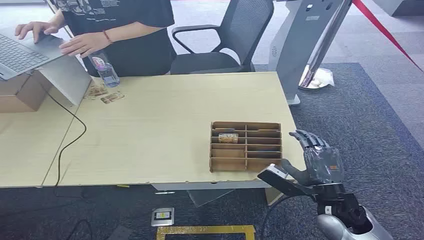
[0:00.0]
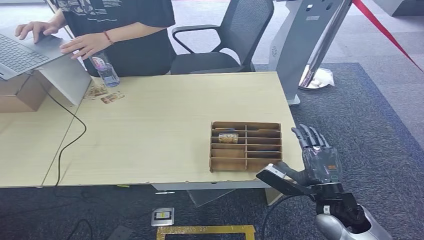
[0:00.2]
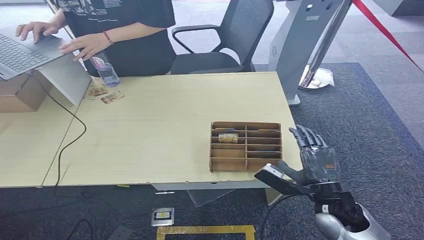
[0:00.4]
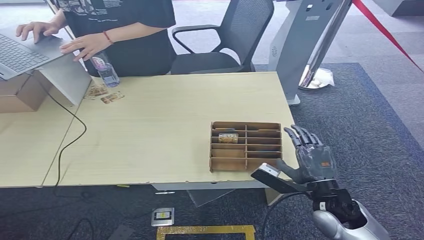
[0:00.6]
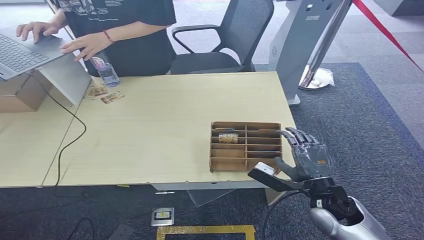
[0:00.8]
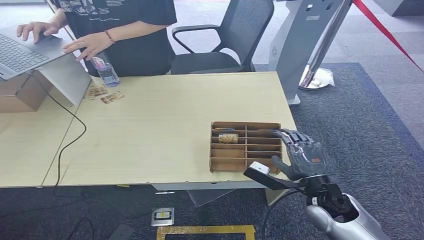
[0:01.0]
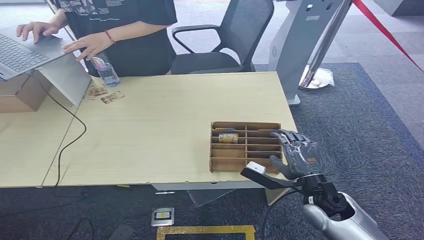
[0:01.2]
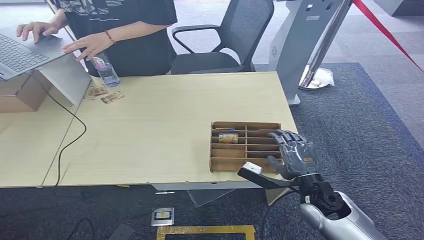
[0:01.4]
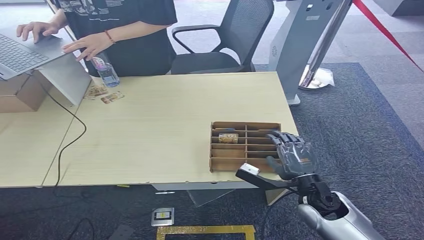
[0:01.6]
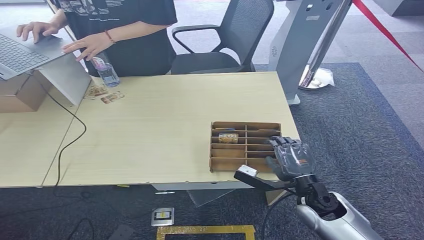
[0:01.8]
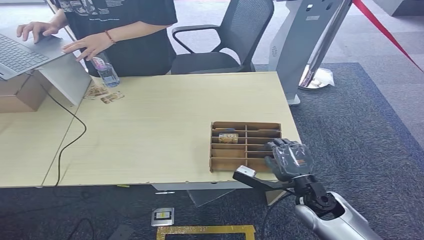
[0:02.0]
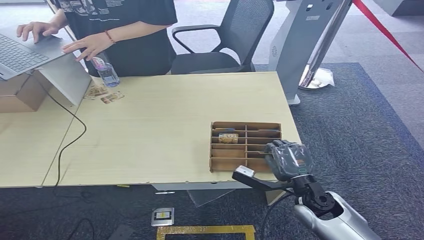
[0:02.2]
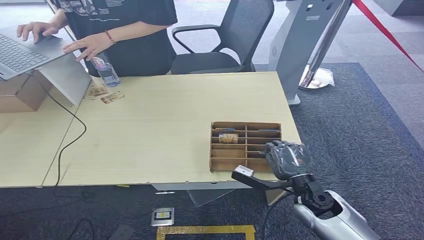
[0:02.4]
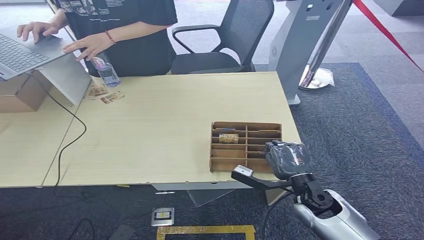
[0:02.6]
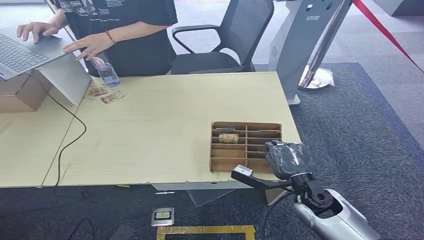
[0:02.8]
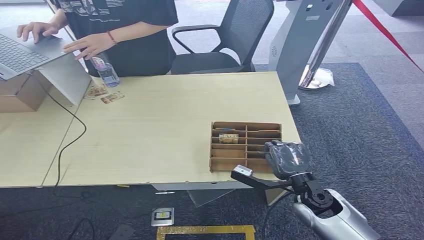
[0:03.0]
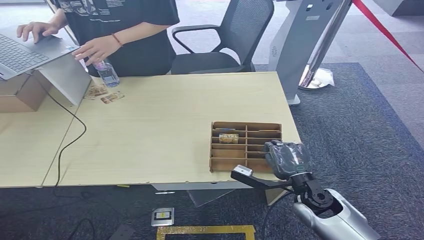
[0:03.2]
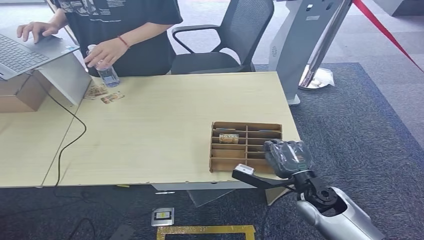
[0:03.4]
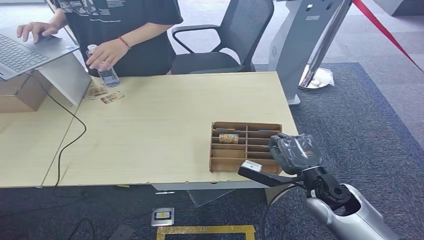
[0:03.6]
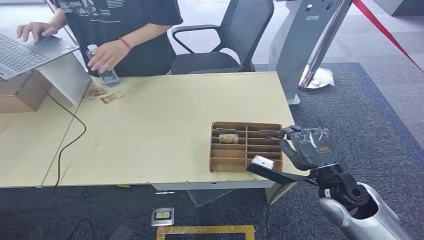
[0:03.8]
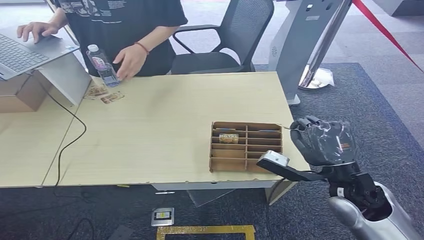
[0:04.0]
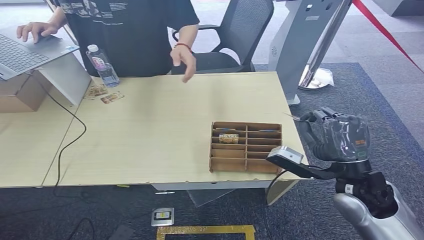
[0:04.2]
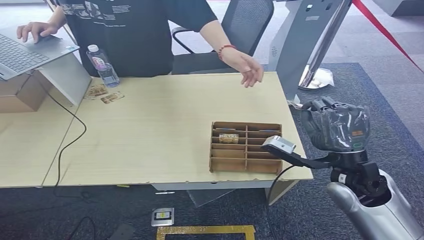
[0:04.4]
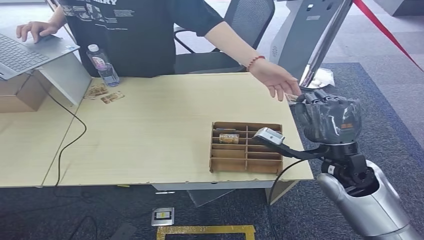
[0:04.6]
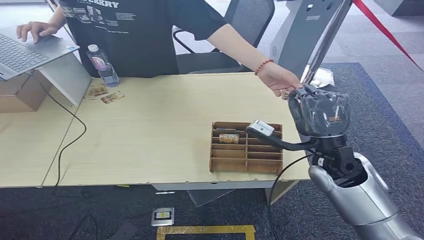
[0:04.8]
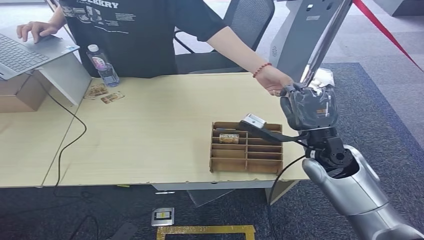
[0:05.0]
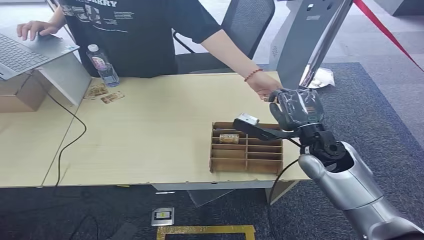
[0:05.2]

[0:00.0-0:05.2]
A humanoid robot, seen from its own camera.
Step, 0:00.0 to 0:04.2: Pick up the key card from the card box.
Step, 0:04.4 to 0:05.0: Hand the key card to the target.
0:01.8 to 0:03.4: The hands stay close to where they were, moving slightly.
0:03.4 to 0:05.2: The right hand moves upward and forward, some 15 cm.
